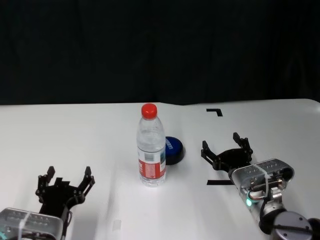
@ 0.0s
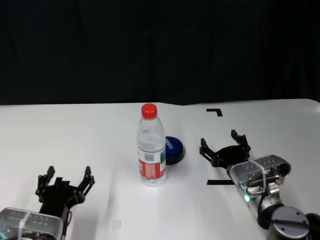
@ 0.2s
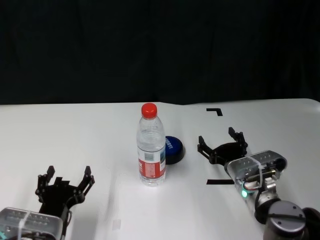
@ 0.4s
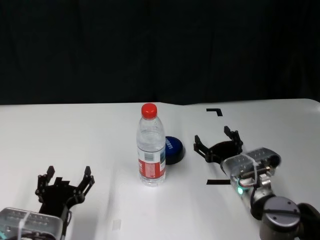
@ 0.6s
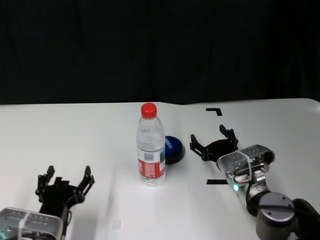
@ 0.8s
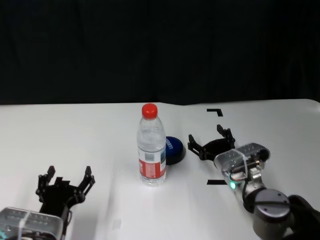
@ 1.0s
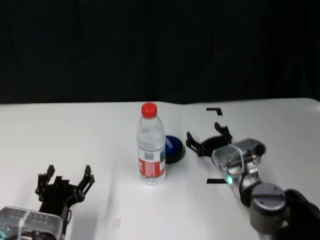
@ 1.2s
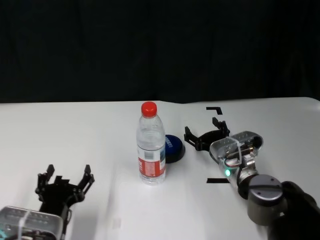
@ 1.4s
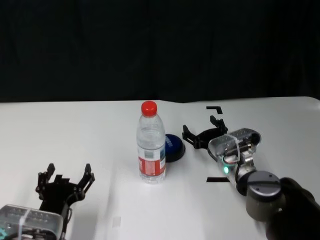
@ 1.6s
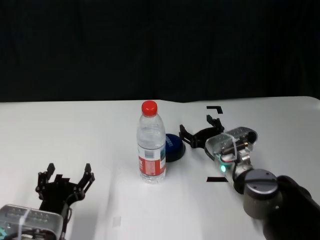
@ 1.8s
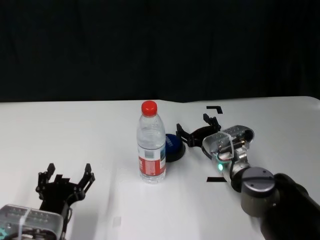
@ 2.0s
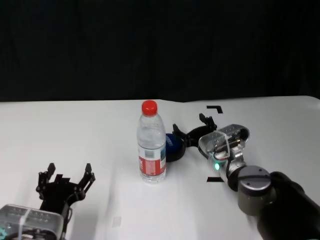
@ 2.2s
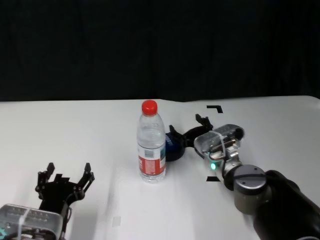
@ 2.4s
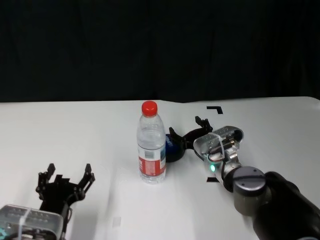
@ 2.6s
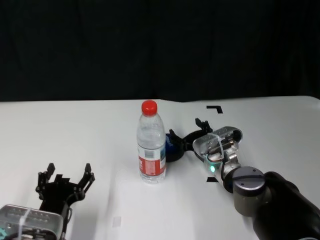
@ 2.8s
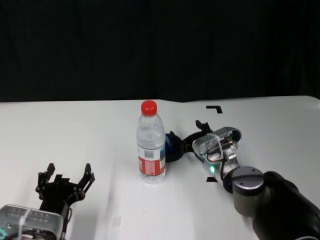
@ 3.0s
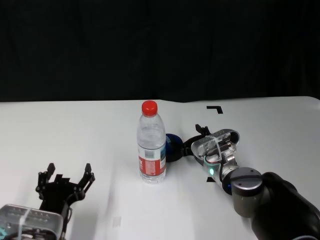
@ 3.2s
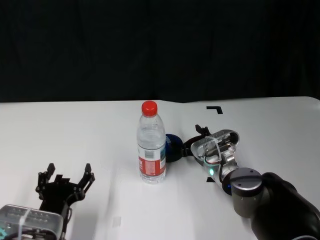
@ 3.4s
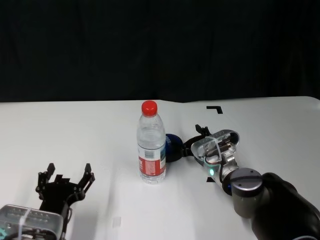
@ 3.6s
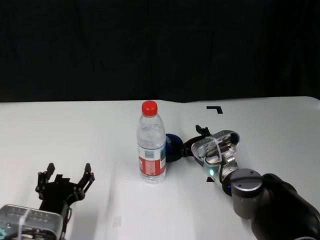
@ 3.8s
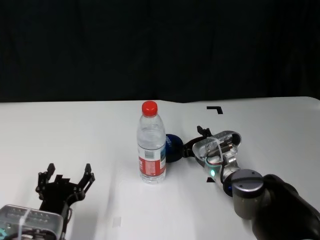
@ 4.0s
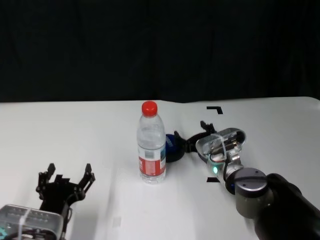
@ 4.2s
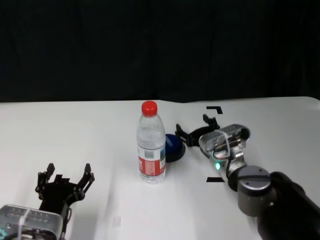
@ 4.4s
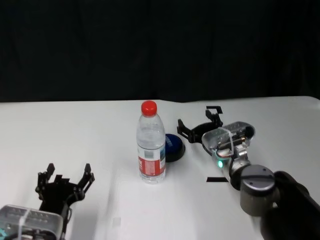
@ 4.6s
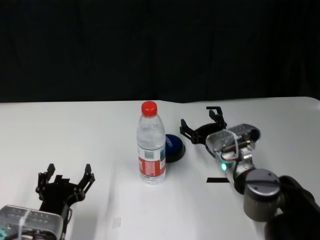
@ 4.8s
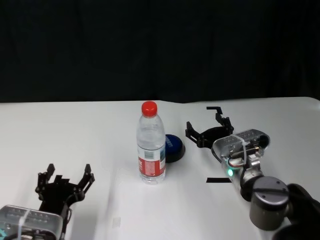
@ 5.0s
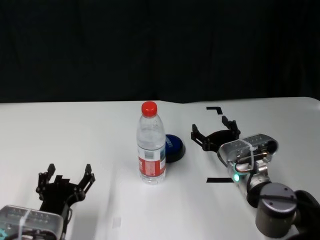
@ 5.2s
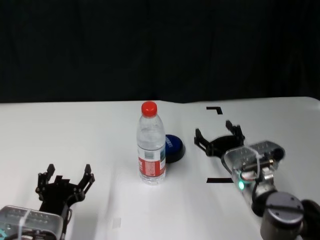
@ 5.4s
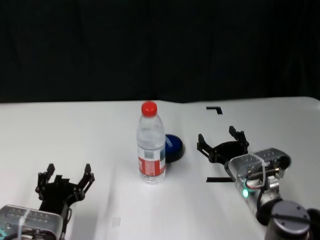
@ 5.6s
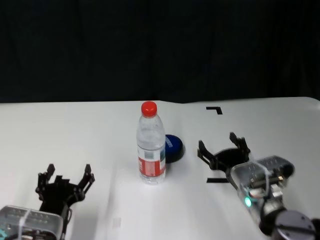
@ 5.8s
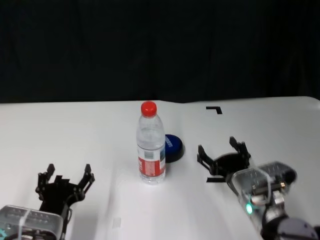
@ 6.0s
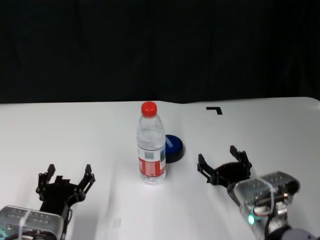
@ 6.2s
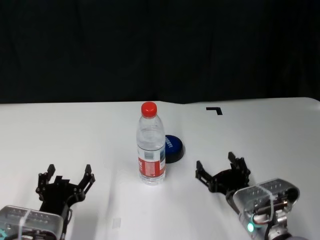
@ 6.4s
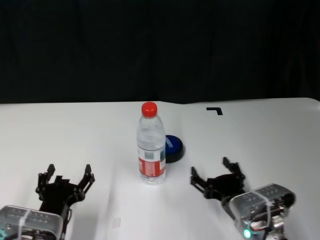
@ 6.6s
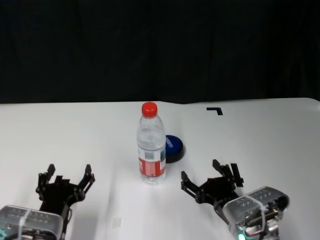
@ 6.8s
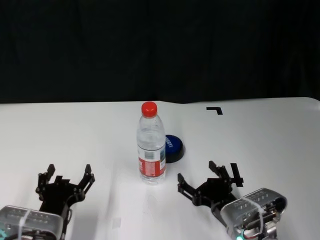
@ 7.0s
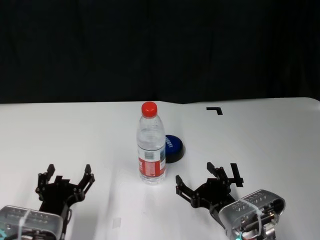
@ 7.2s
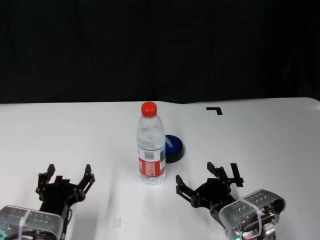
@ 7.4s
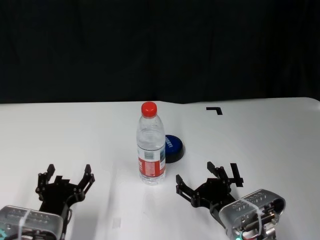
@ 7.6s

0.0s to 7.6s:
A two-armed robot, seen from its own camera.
Task of the whole recording: after avoiding the water bottle on the table, press the button.
Step, 0.0s to 4.2s: Press the button blocked by the bottle with right gripper.
